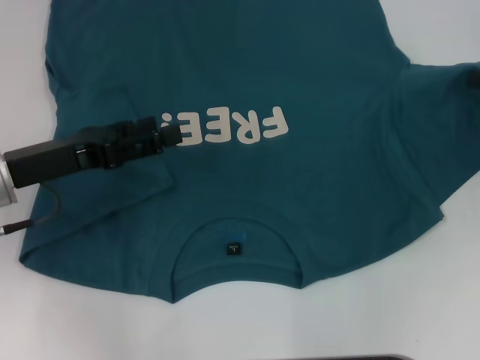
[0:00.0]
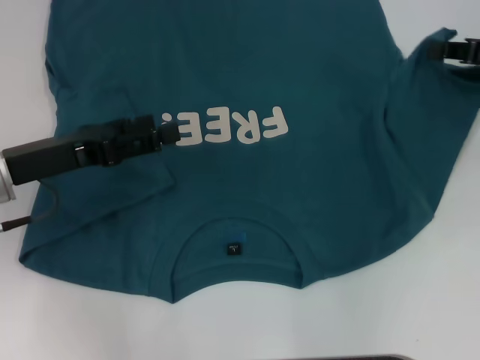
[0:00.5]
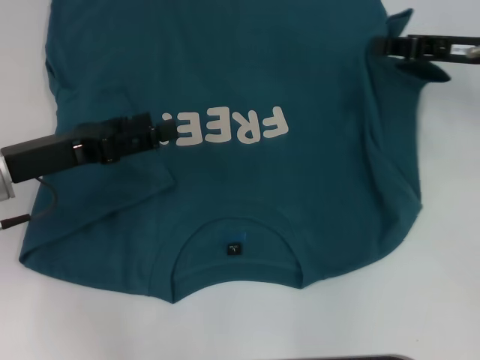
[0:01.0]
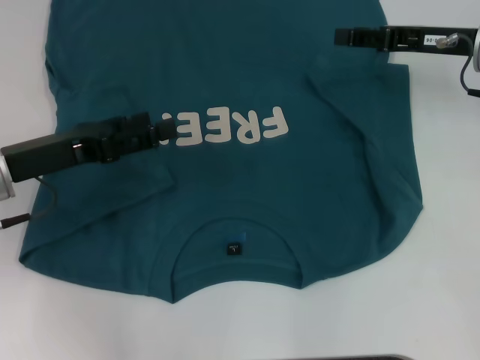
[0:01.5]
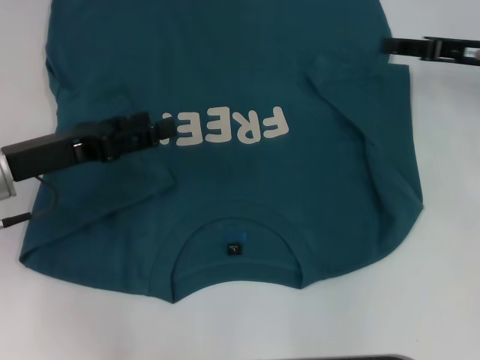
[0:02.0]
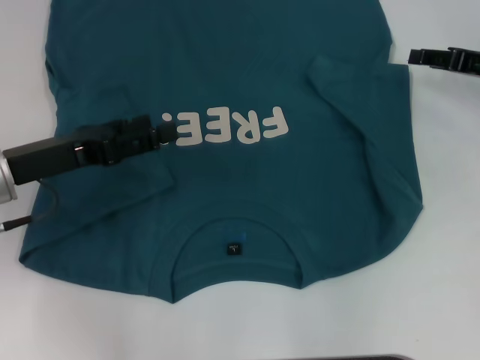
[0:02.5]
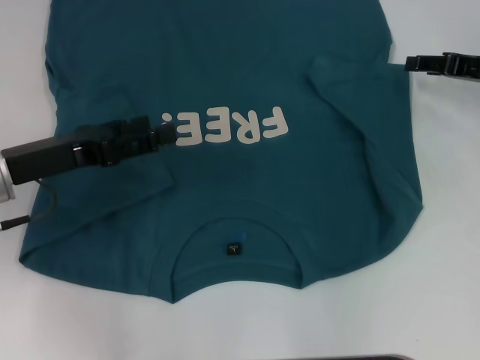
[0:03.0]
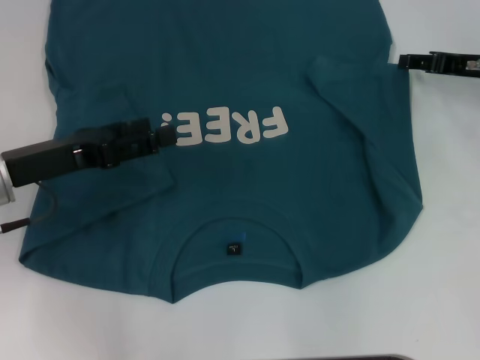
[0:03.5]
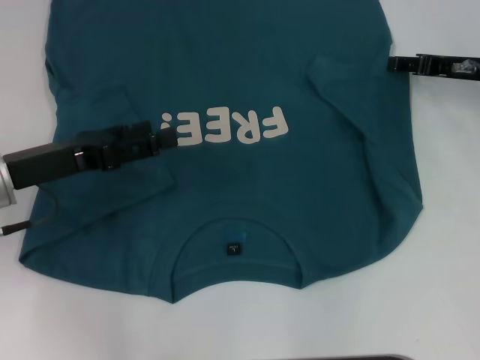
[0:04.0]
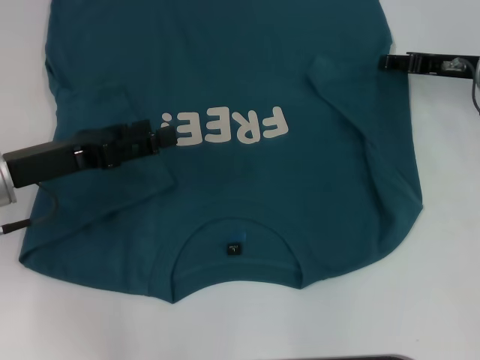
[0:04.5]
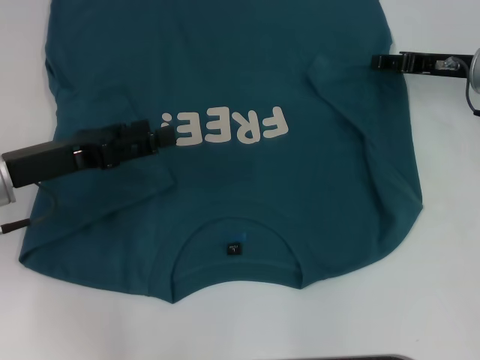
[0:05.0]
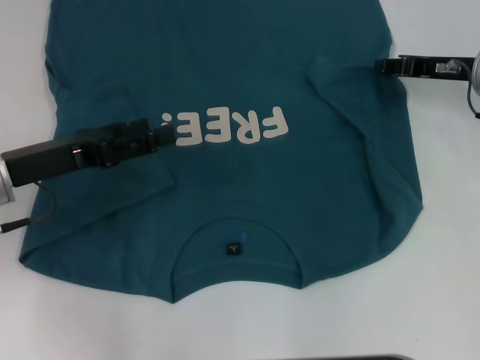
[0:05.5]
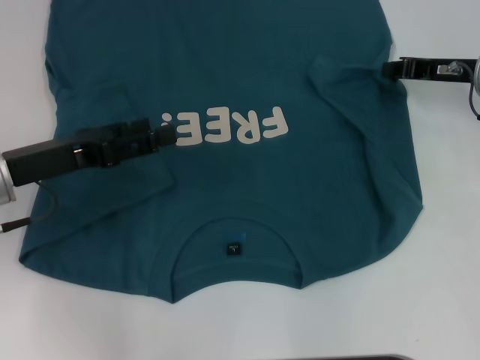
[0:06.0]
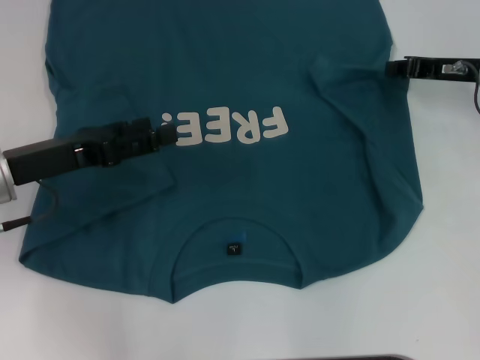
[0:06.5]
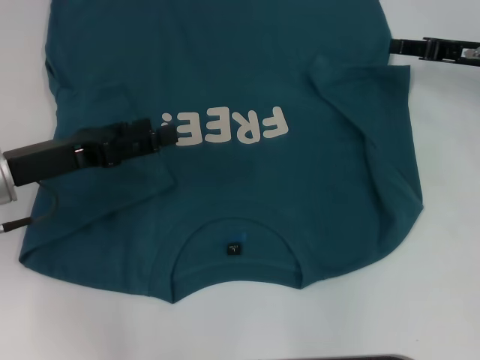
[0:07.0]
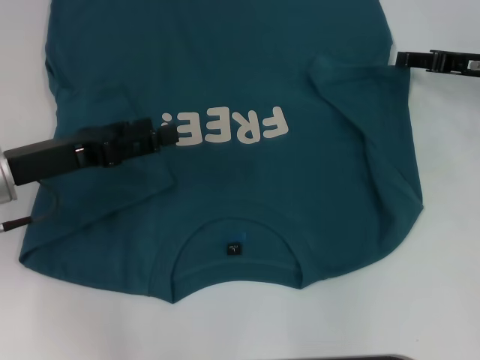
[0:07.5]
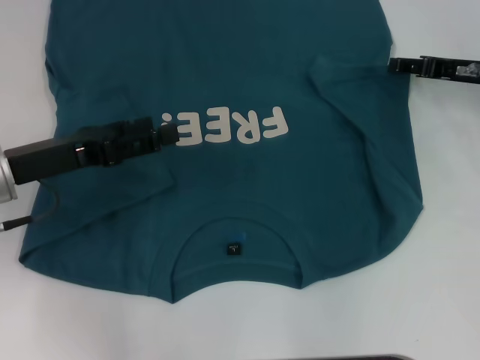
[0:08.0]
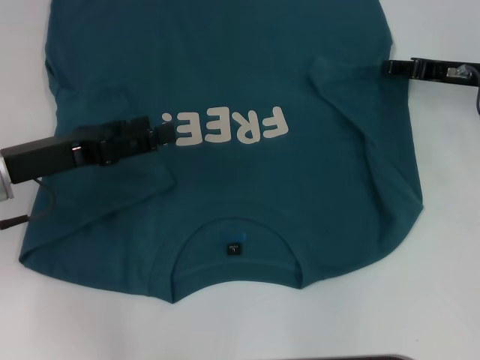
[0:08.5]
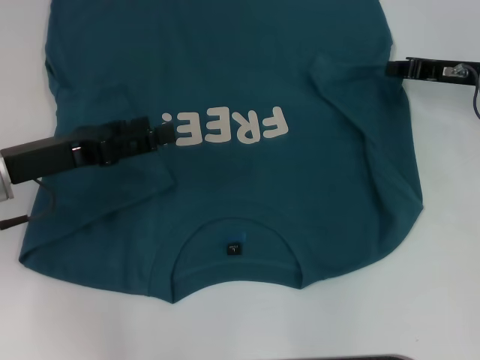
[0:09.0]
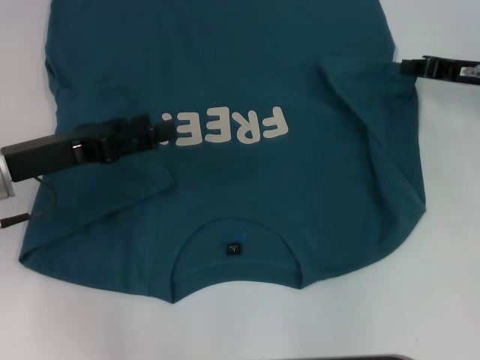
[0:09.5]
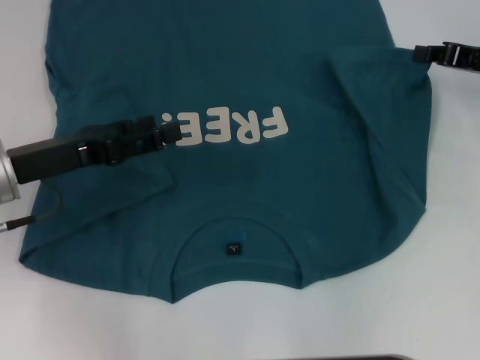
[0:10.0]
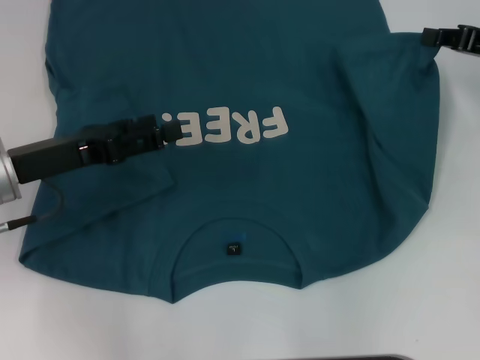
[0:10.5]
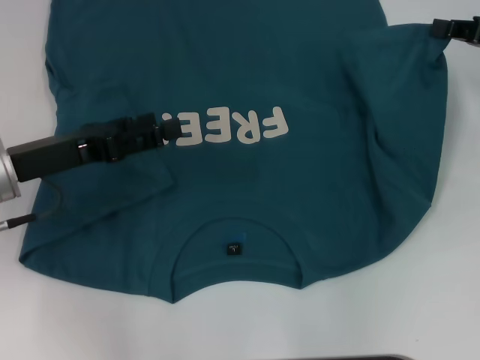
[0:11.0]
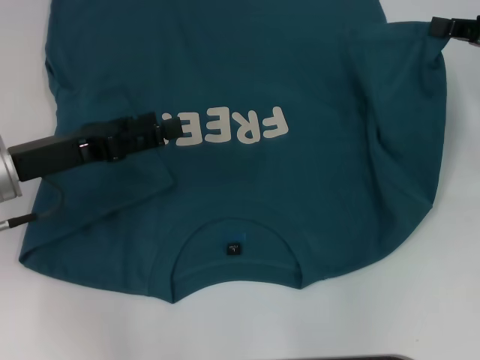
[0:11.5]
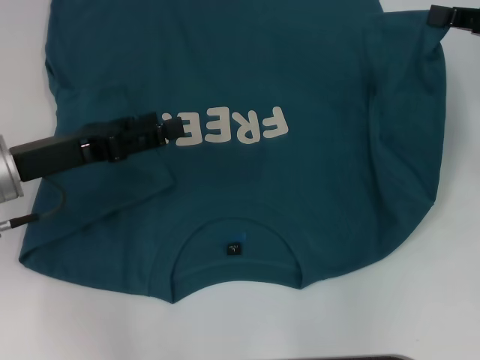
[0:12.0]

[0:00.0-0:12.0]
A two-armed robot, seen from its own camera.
0:00.0 to 0:02.0: The right gripper heads to the left and forward, covering about 10 cm, and opens up.
0:02.0 to 0:04.0: The grippers stay close to where they were, moving slightly.
0:04.0 to 0:06.0: The right gripper closes.
0:06.0 to 0:08.0: The right gripper opens its fingers.
0:08.0 to 0:10.0: The right gripper closes.
0:10.0 to 0:12.0: The right gripper is displaced upward by approximately 5 cm.

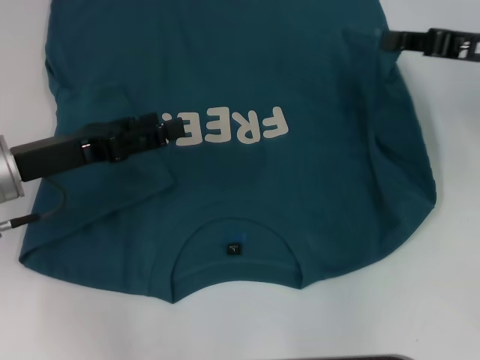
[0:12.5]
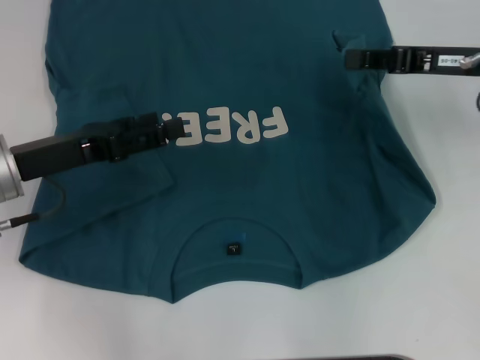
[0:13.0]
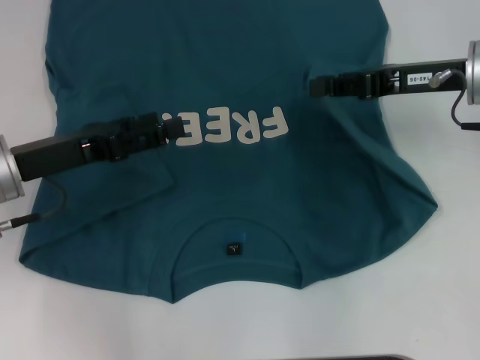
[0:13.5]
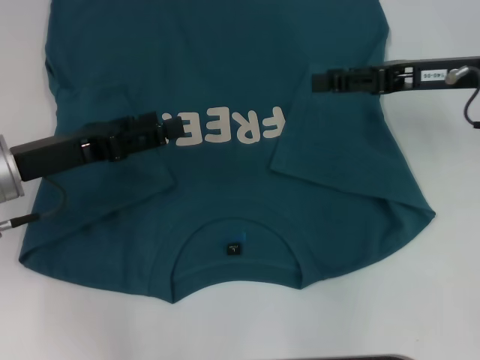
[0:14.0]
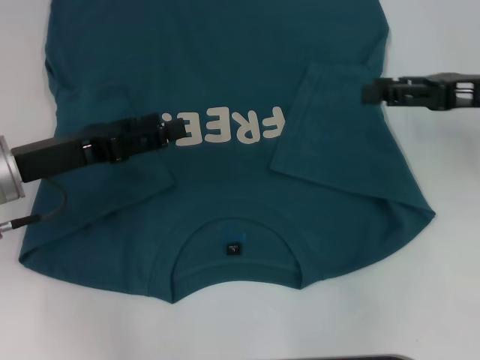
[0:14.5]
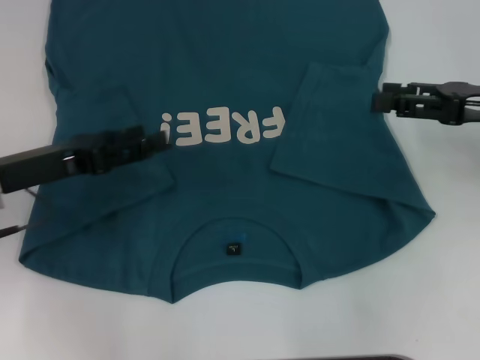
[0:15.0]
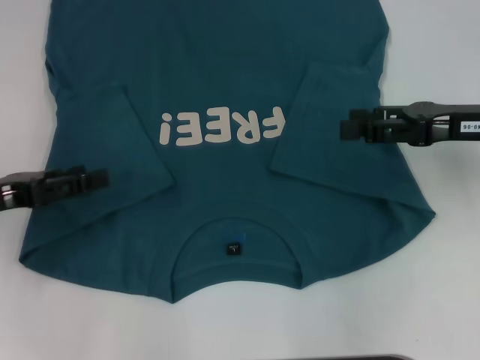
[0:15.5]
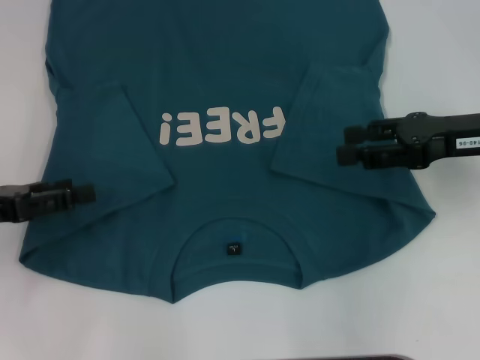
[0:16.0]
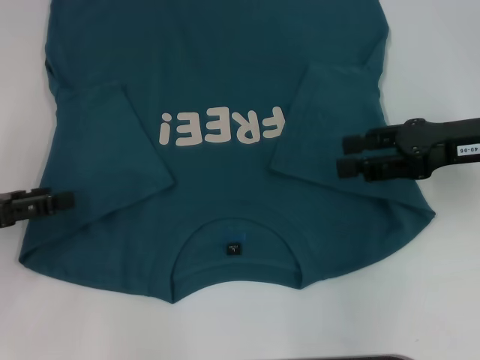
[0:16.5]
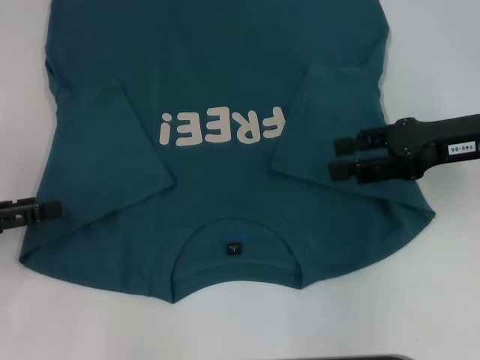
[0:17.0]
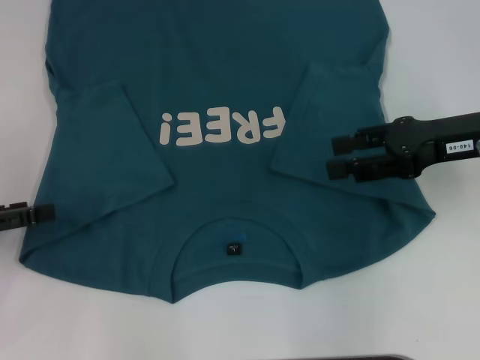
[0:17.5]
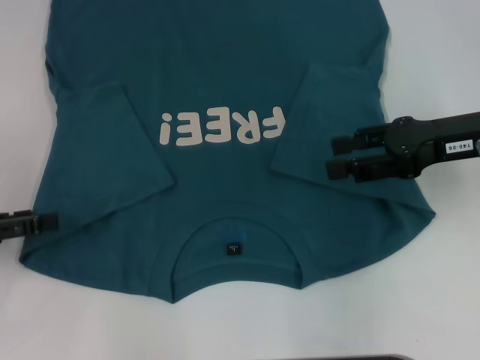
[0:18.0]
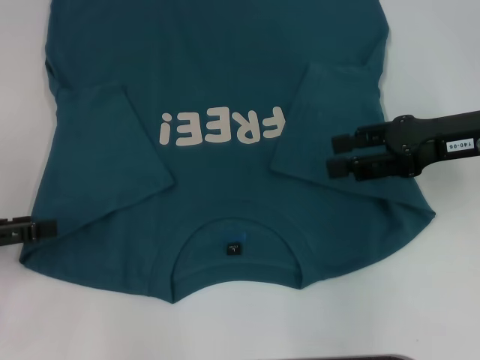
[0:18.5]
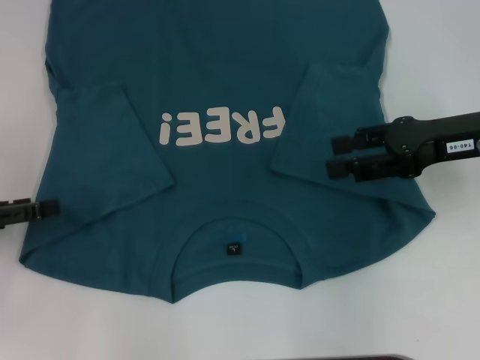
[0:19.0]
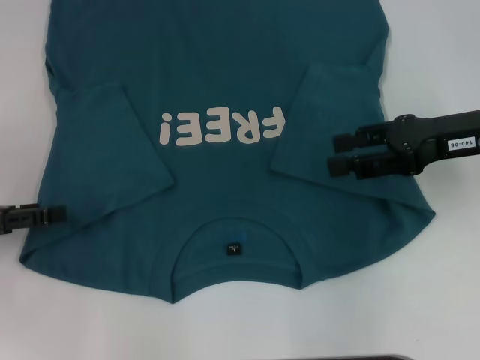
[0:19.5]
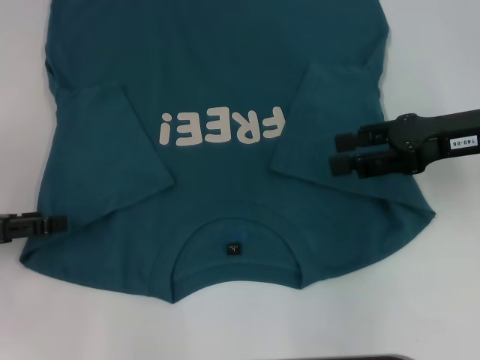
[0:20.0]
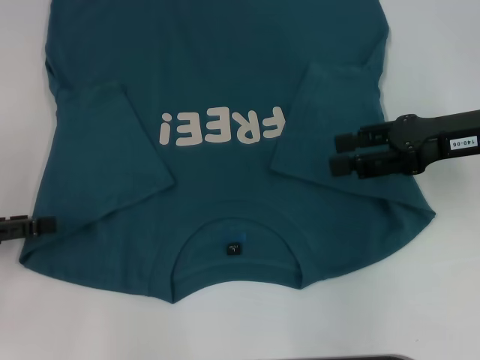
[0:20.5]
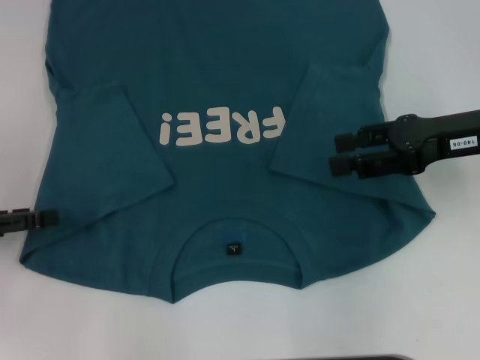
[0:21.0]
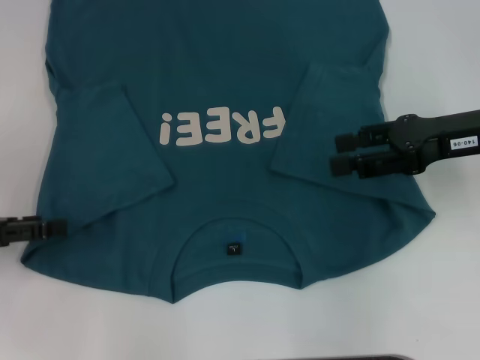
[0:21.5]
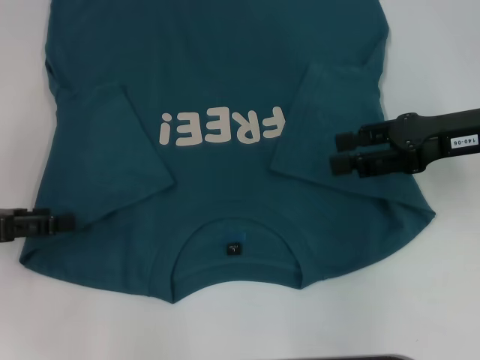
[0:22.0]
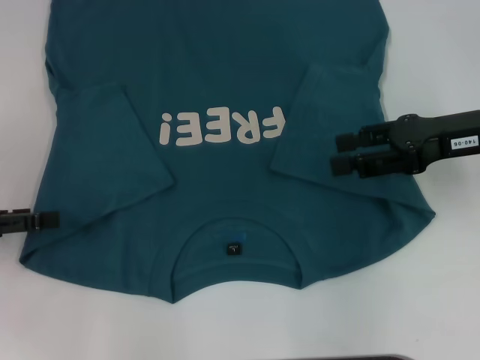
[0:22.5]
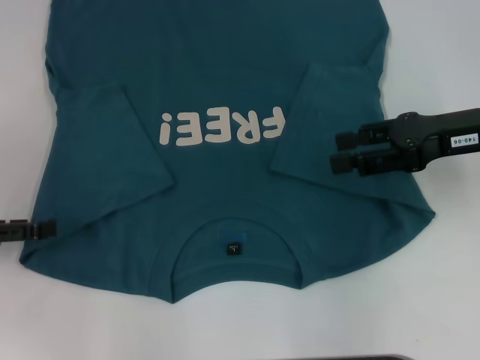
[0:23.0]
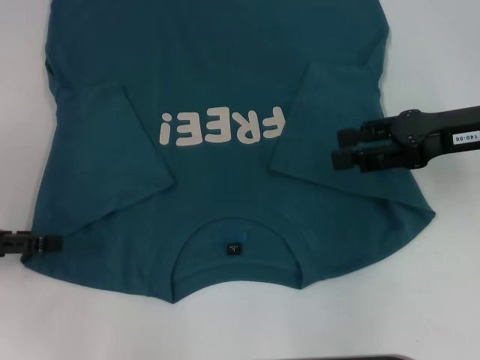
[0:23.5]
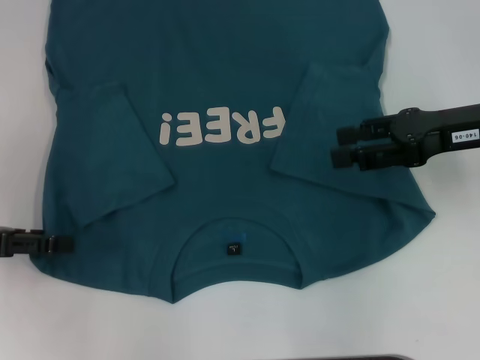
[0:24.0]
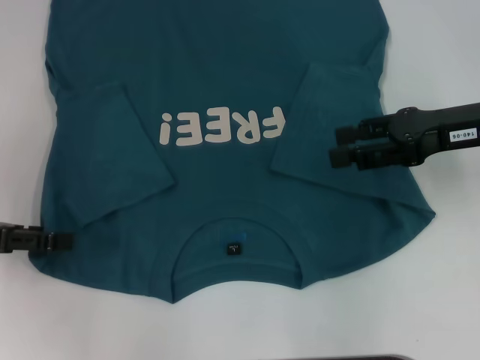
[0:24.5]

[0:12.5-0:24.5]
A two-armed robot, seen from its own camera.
0:12.5 to 0:14.5: The right gripper opens.
0:14.5 to 0:16.5: The left gripper goes roughly 10 cm to the left.
0:16.5 to 0:18.5: The grippers make only small movements.
0:22.5 to 0:24.5: There are only small adjustments of the grippers.

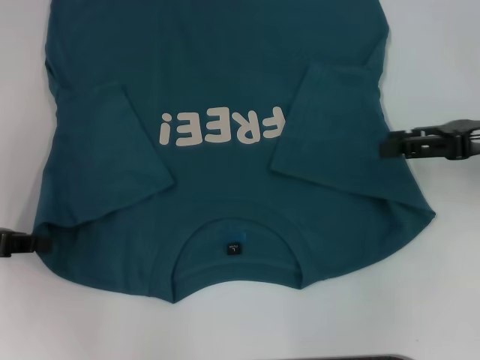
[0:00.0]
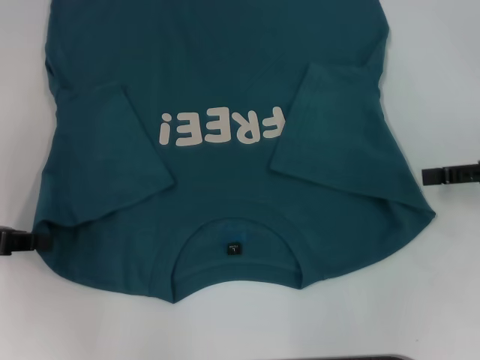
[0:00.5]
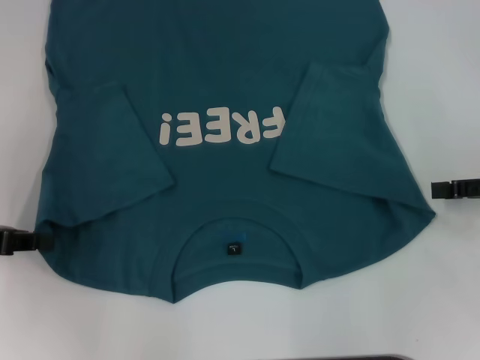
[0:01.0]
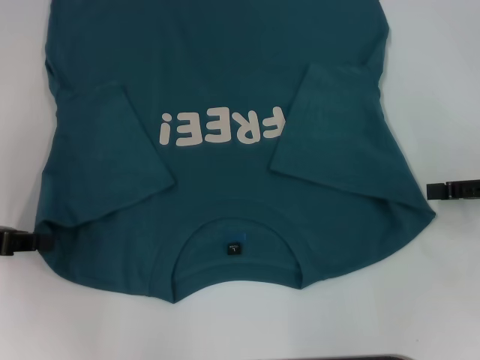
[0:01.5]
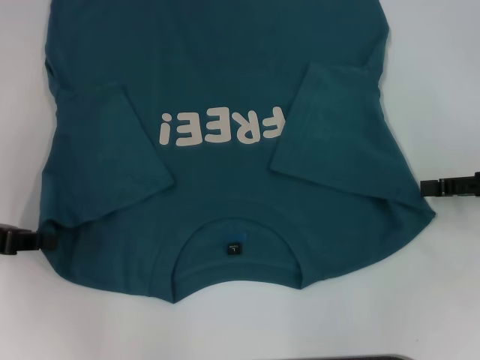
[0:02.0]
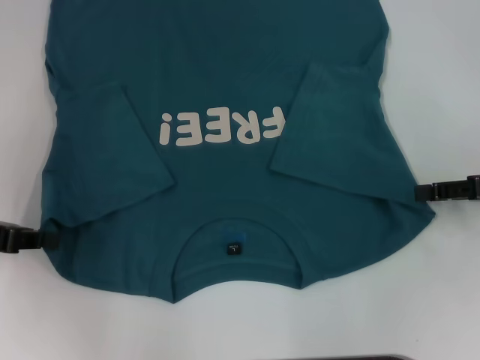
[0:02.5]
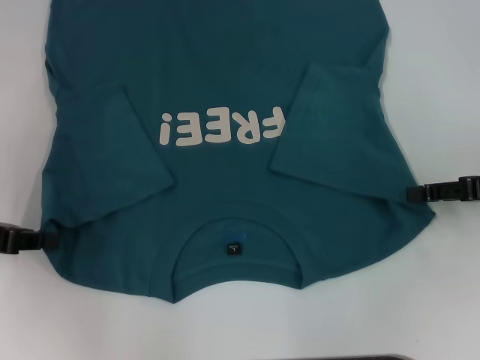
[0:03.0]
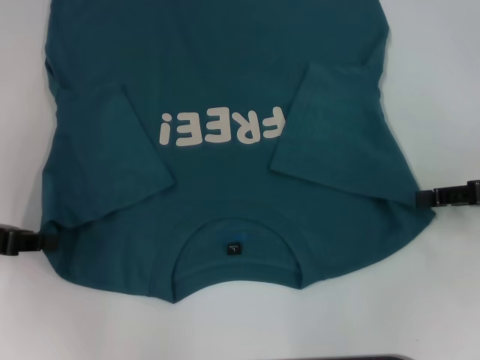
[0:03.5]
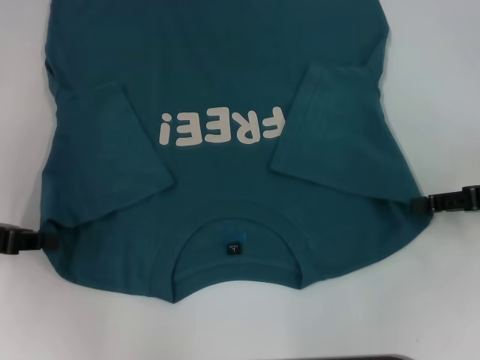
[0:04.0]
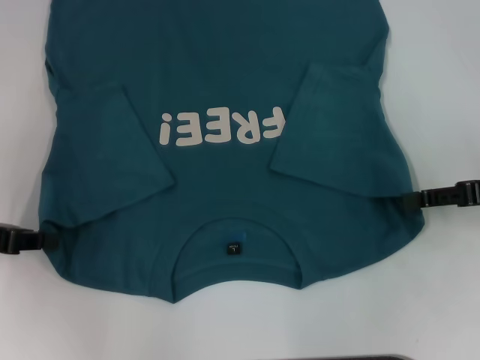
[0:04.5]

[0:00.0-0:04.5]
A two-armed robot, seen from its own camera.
0:00.0 to 0:02.0: The right gripper moves about 5 cm.
0:02.0 to 0:04.5: The grippers make only small movements.
